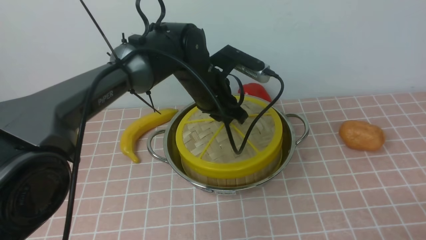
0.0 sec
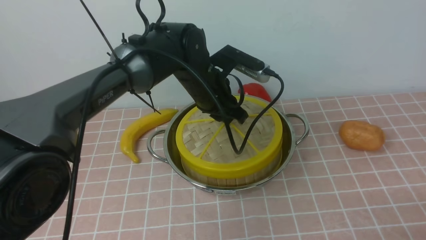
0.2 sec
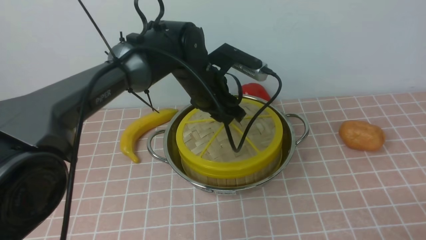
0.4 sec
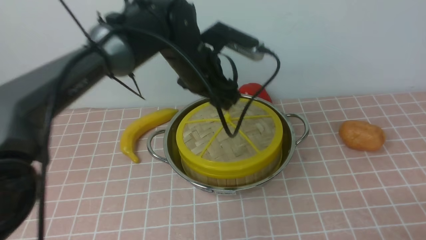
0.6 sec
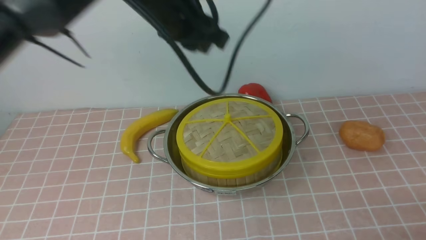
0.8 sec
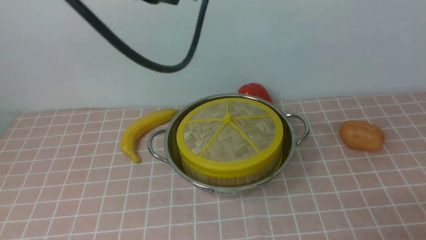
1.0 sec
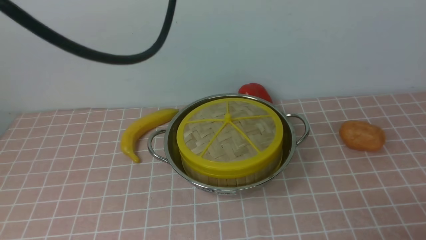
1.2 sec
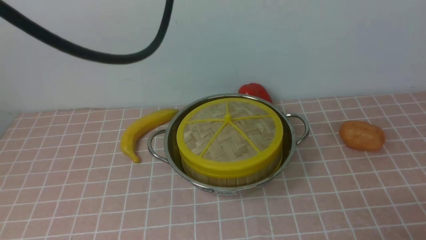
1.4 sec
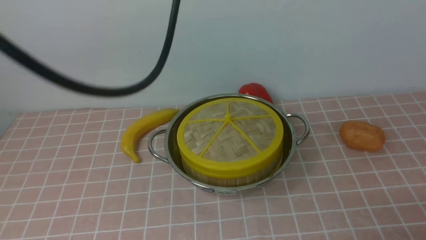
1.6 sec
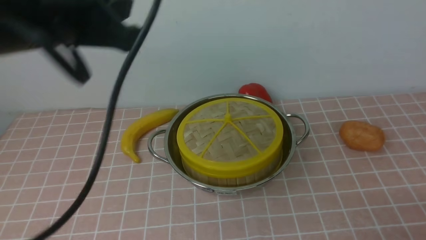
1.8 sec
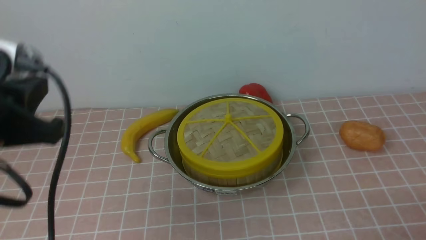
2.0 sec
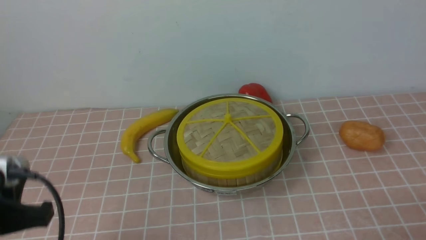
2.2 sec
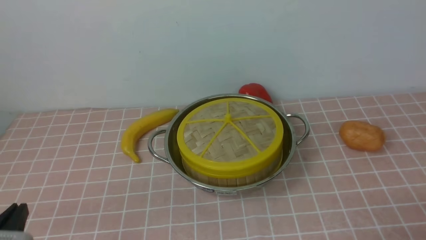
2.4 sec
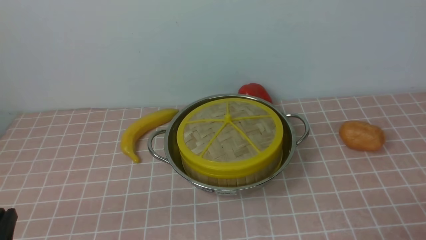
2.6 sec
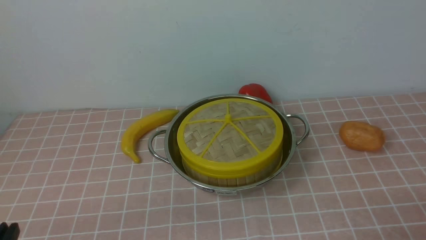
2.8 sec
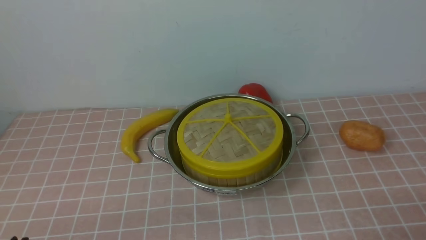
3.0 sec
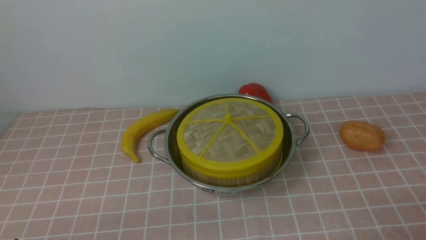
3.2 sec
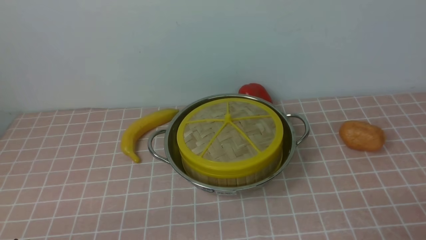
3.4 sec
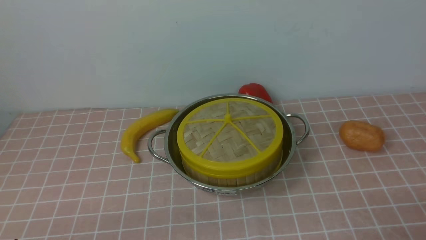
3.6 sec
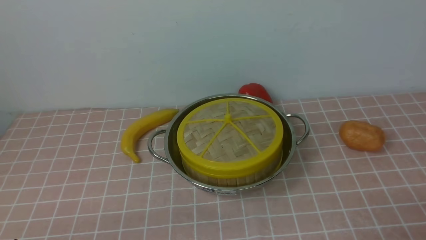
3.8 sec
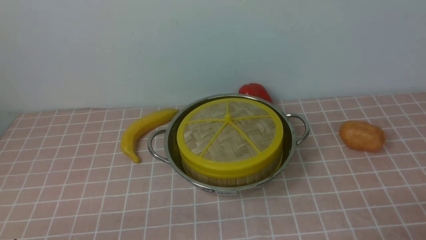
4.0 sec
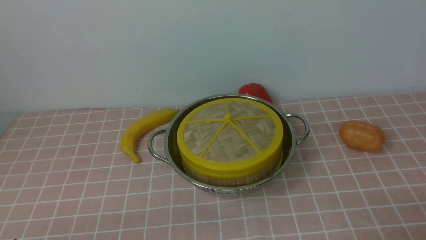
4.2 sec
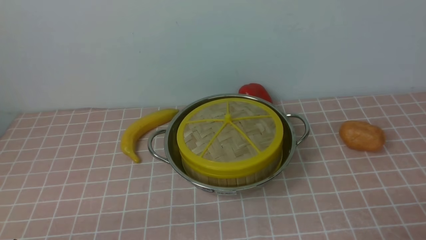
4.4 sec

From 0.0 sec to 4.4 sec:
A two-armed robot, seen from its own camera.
Task of the whole recording: place the steamer in the pot on the pink tablecloth, and put the lid on the steamer.
From 0.0 sec to 1.4 sec: The left gripper heads upward and backward, covering approximately 30 cm, and closes.
From 1.4 sec to 3.0 sec: The left gripper is displaced downward, backward and to the left by approximately 40 cm.

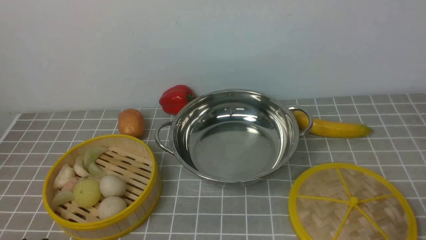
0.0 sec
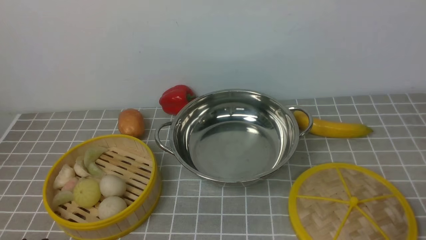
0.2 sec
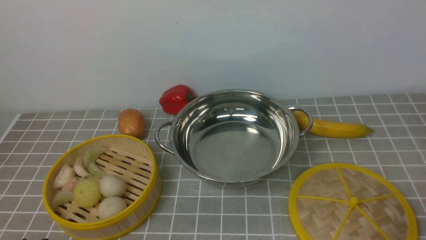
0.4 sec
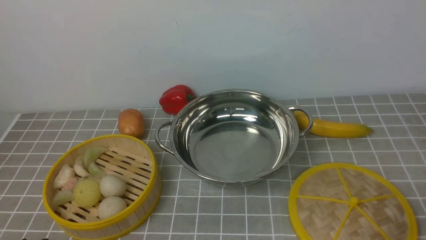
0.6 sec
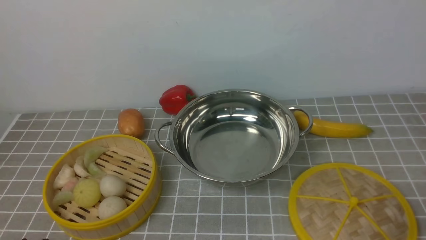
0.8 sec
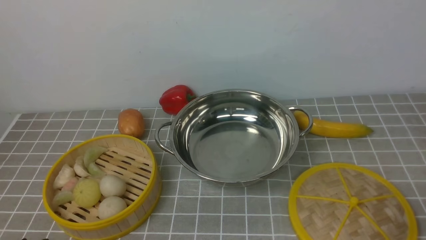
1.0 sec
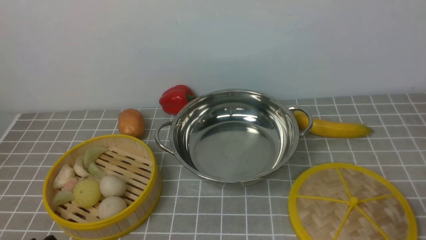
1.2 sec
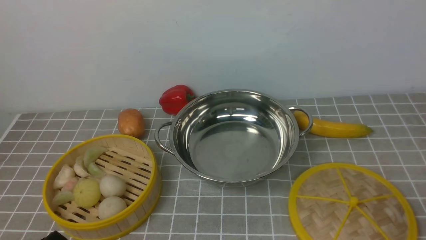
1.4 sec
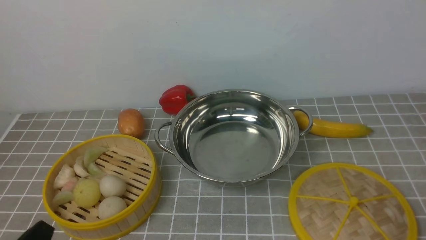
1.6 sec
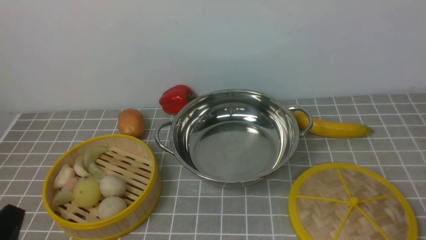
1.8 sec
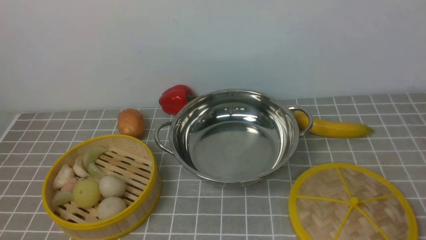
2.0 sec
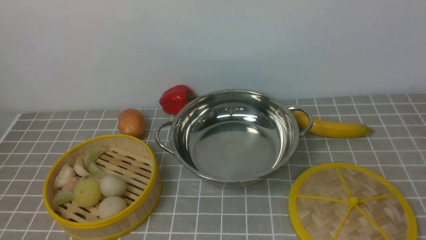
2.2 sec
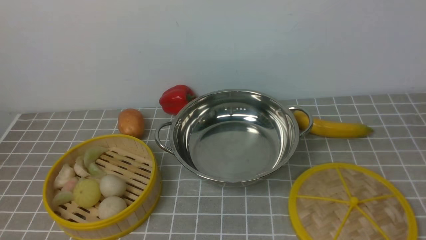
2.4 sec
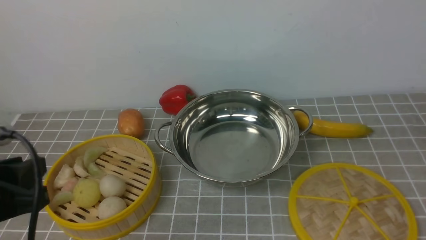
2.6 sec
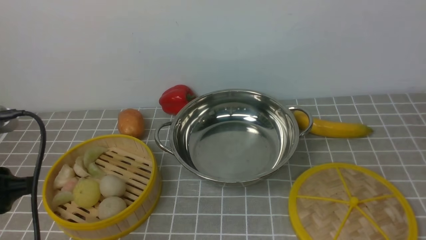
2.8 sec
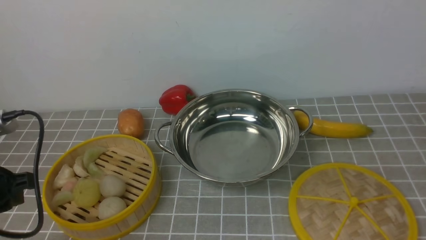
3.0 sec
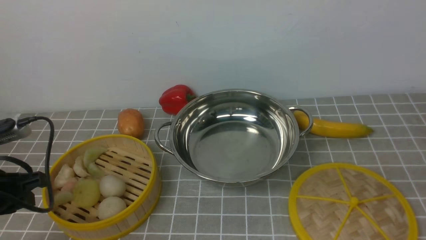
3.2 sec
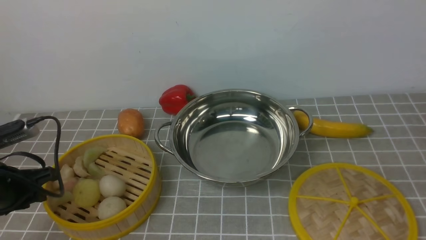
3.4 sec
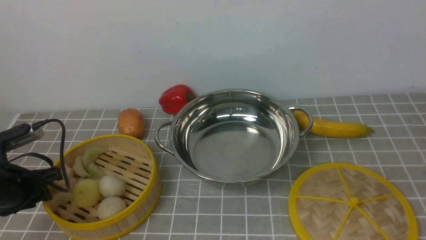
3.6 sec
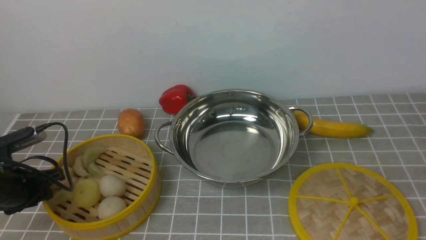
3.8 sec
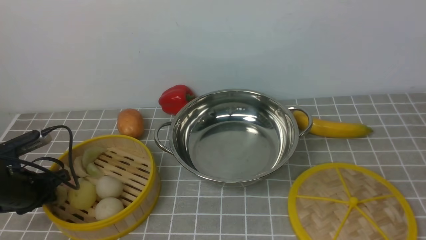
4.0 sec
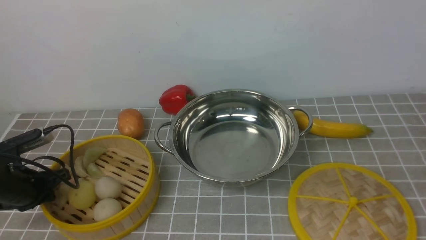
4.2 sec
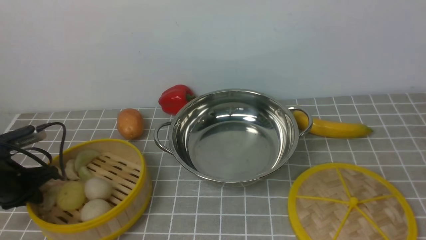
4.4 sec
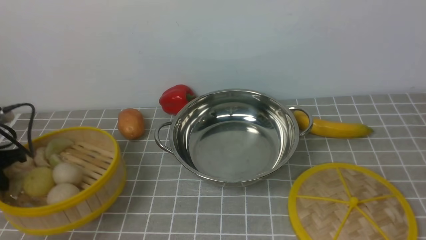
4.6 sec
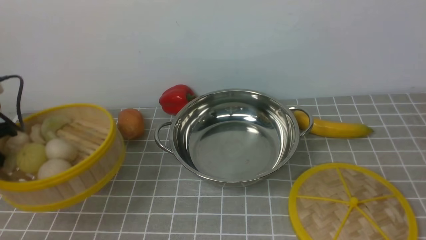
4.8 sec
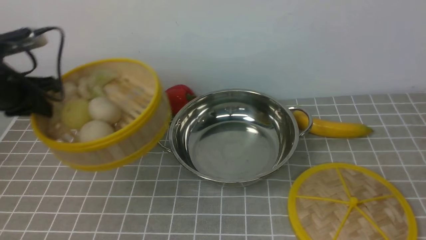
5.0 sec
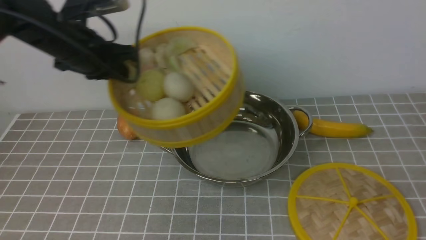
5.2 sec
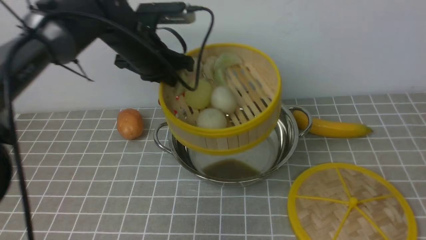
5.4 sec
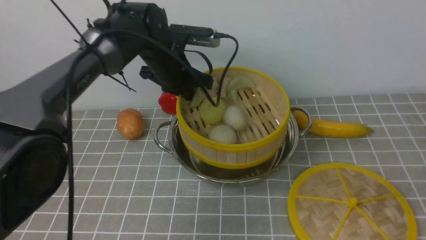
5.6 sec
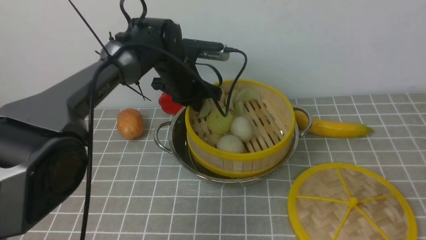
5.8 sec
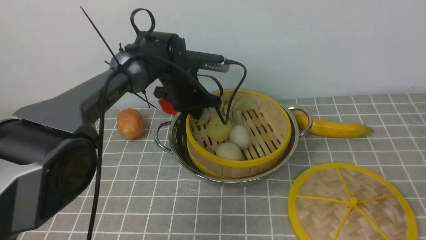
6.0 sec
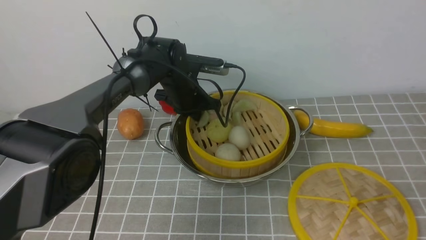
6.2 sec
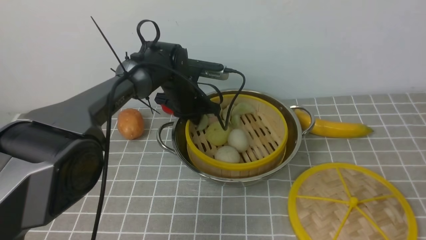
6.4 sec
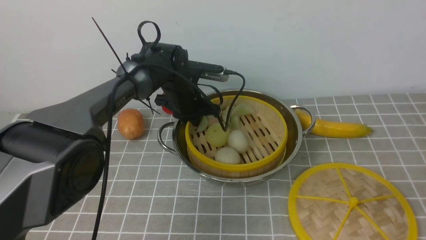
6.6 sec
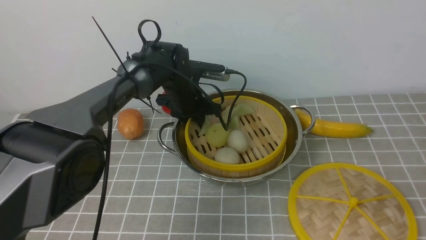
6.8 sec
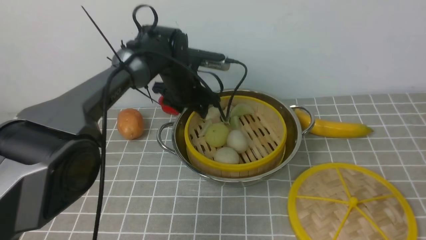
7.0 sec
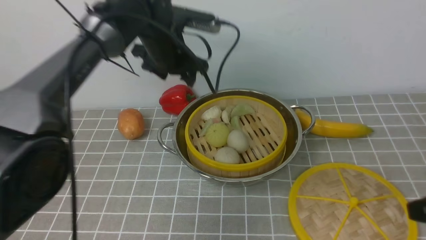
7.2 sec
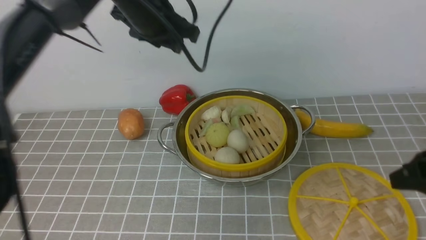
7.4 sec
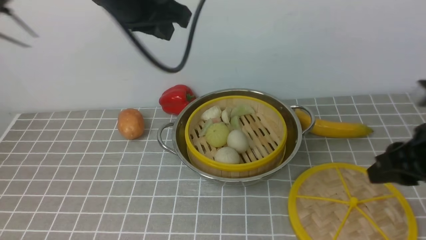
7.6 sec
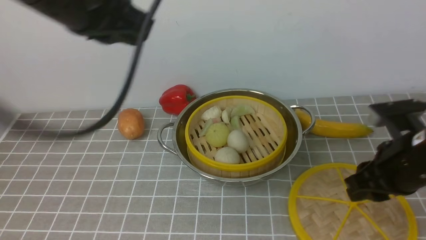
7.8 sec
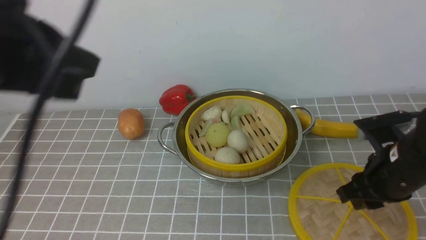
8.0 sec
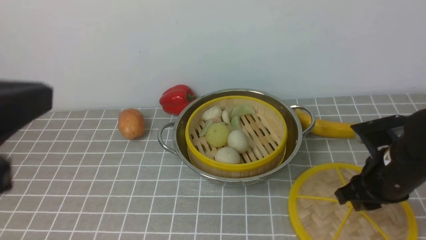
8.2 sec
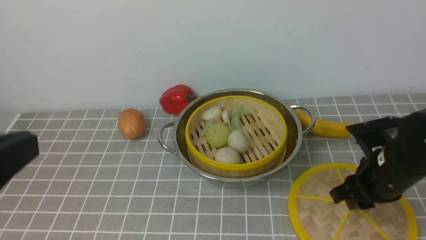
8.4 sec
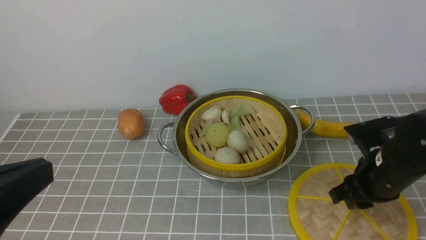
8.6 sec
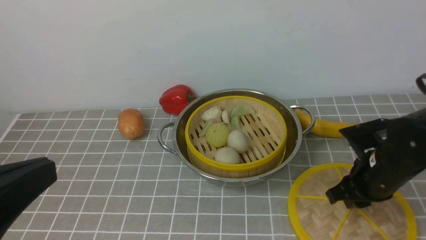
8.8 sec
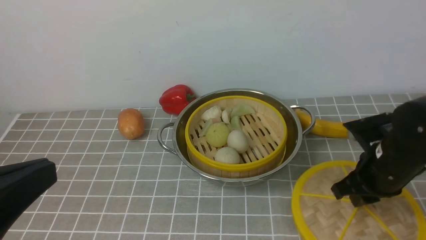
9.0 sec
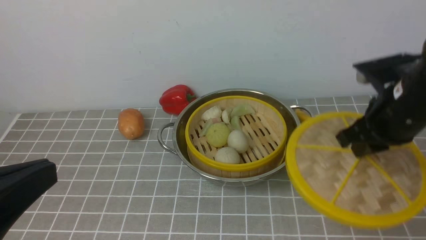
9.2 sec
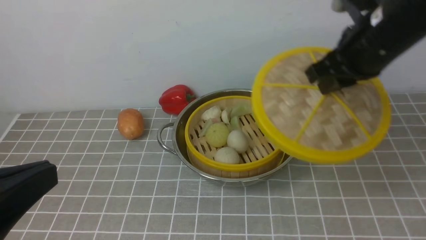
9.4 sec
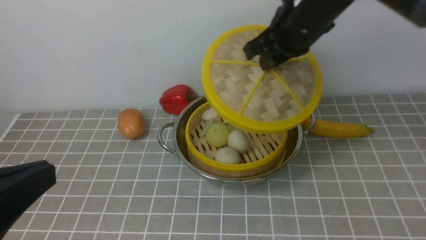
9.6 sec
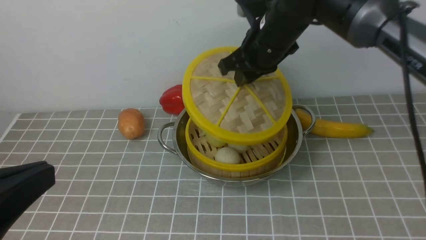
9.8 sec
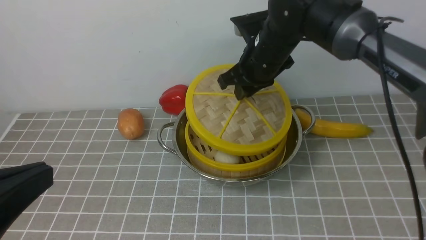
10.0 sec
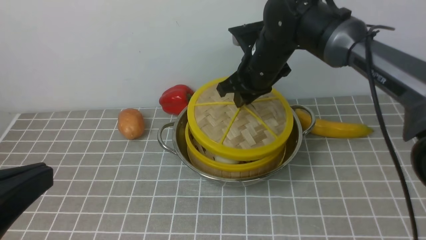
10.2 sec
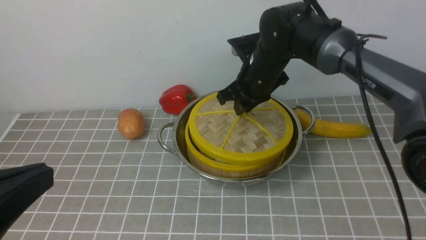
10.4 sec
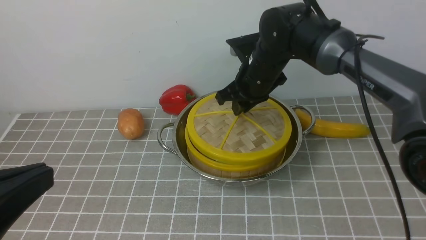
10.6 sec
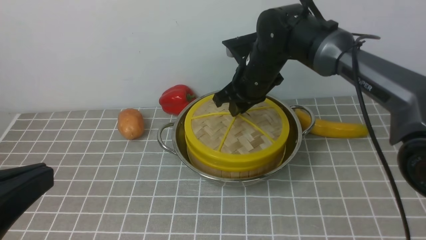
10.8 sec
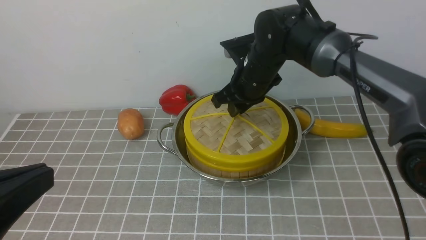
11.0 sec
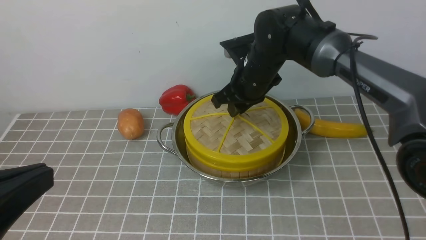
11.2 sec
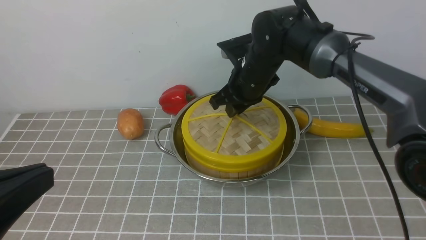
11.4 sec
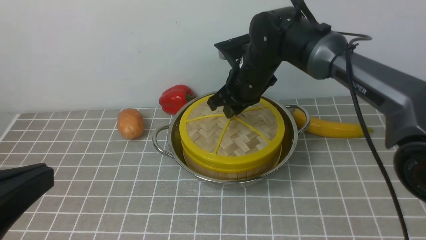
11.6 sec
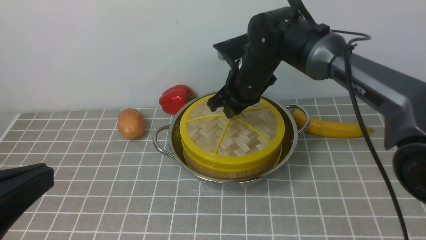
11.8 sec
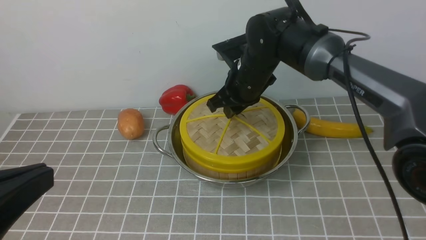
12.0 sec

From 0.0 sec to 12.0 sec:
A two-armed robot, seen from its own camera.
Task of the whole recording: place the steamer in the pot on the grey tablecloth, and put the lid on the steamer.
Step, from 0.0 sec to 4.4 sec: use the left arm to lift the steamer closest to it.
Step, from 4.6 sec to 7.0 sec: use the left arm to put the steamer into the iron steamer pot in the middle.
Step, from 7.2 sec to 8.8 sec: use the right arm to lift the lid of the steamer.
From 1.6 sec to 3.0 sec: The left gripper heads forward, upward and to the left, covering some 15 cm.
From 3.0 sec to 4.4 sec: The left gripper moves forward, downward and to the left, approximately 15 cm, and closes its fingers.
From 4.4 sec to 6.0 sec: The left gripper travels to the right and forward by approximately 35 cm.
From 6.0 sec to 7.6 sec: The right gripper shifts approximately 10 cm forward. The left gripper travels upward and backward by approximately 25 cm, and opens, then closes again.
From 7.6 sec to 9.0 sec: The left gripper heads backward, covering approximately 25 cm. The right gripper travels forward by approximately 5 cm.
From 9.0 sec to 10.4 sec: The right gripper shifts about 20 cm to the left and forward.
From 10.4 sec to 12.0 sec: The grippers make only small movements.
